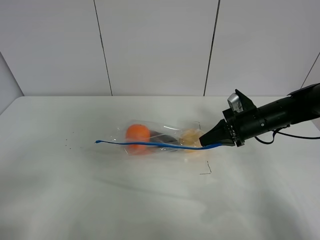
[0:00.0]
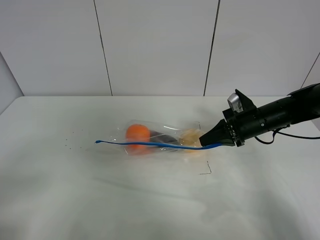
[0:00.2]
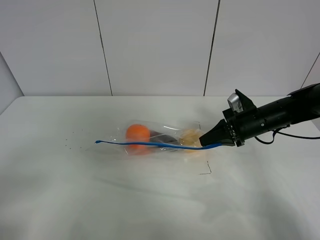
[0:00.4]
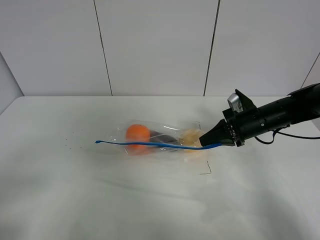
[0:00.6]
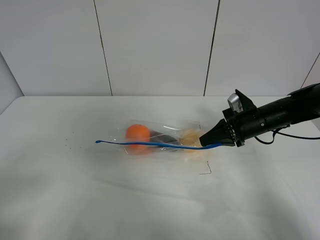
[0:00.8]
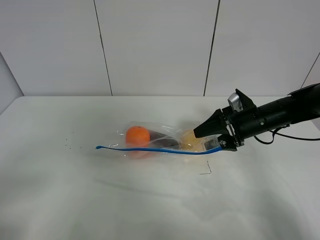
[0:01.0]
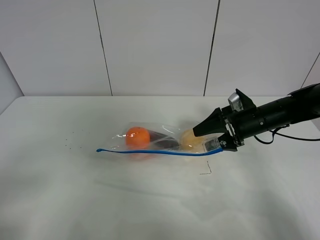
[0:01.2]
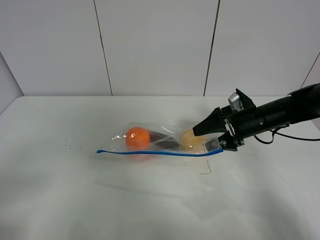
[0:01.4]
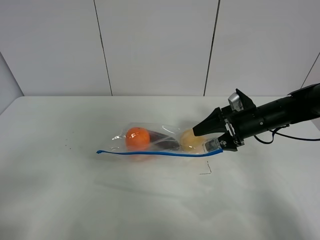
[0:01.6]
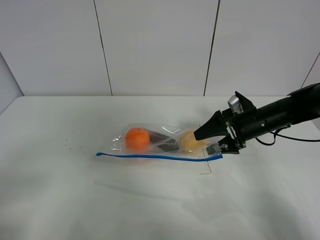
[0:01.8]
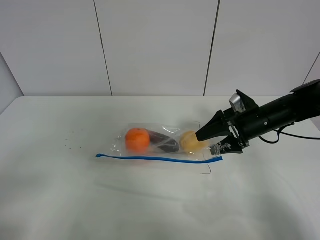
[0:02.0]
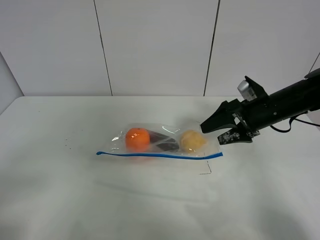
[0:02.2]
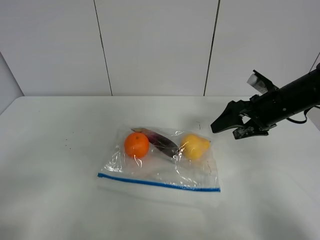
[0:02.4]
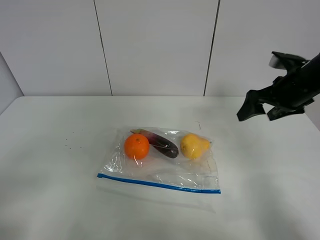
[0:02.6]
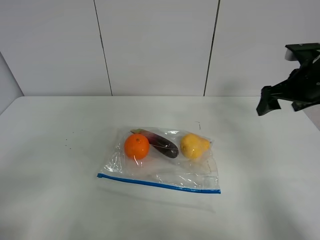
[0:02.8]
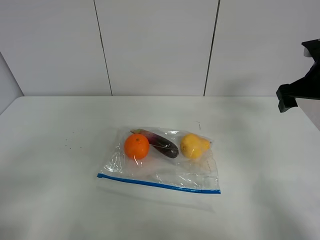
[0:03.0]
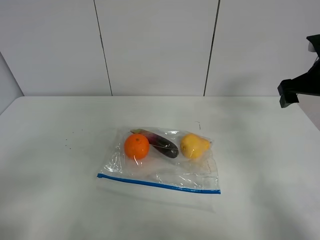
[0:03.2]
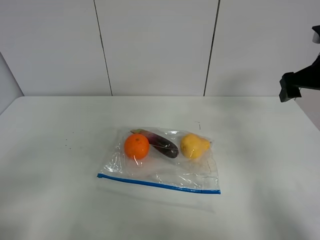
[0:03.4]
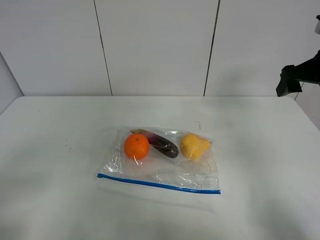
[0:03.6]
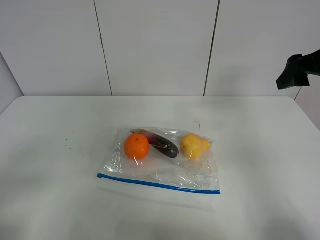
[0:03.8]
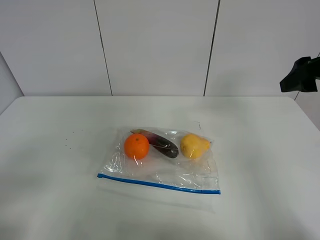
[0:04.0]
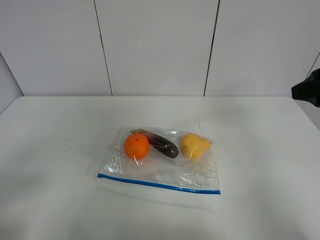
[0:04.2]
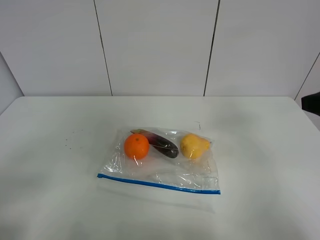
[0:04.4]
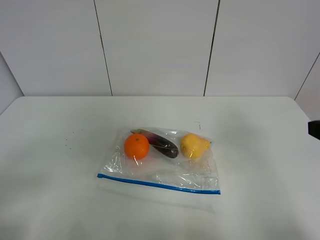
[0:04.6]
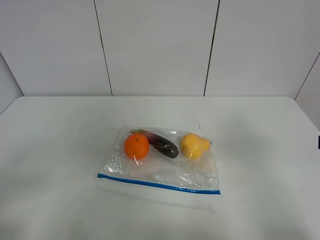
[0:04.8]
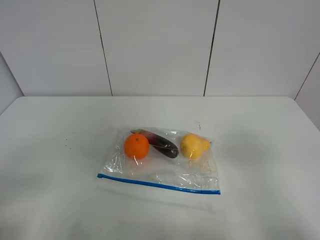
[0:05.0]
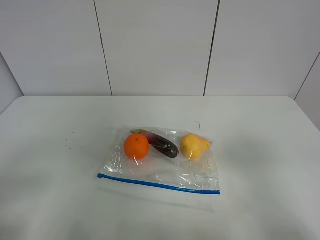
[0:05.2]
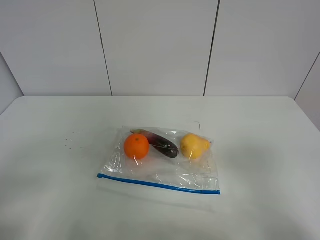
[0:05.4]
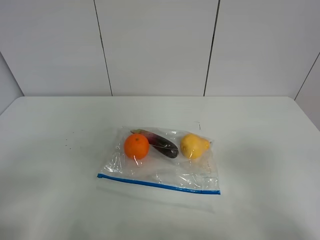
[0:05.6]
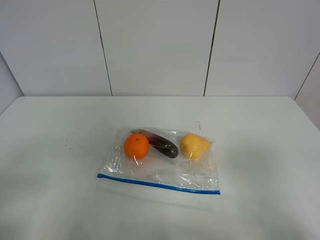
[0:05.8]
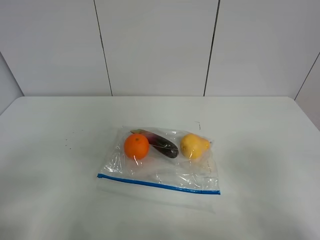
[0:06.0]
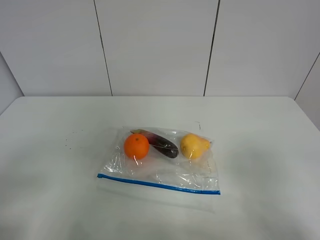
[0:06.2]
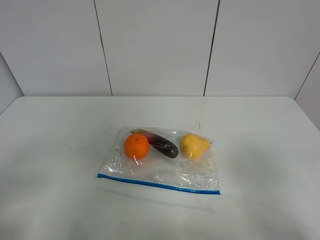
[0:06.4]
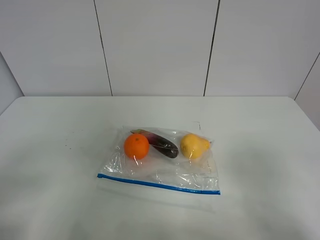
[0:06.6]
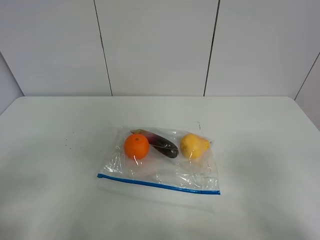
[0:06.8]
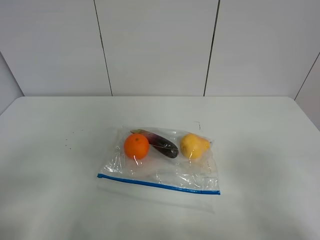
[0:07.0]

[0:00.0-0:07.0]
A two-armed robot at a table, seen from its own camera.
Step, 0:00.0 to 0:02.4: Place the fruit bag with right gripper.
0:00.0 to 0:01.4: The right gripper opens up.
0:01.4 to 0:02.8: The right gripper travels upward and to the right by approximately 15 cm.
0:02.8 to 0:04.2: The right gripper is displaced backward and upward by some 15 cm.
0:04.2 to 0:05.6: The right gripper heads backward, covering some 20 cm.
